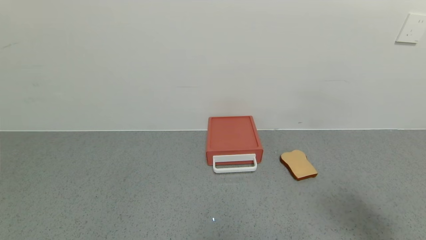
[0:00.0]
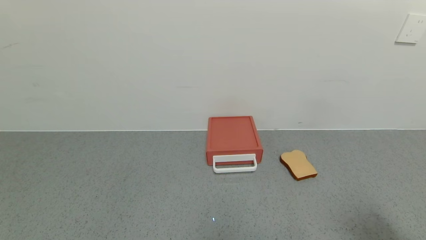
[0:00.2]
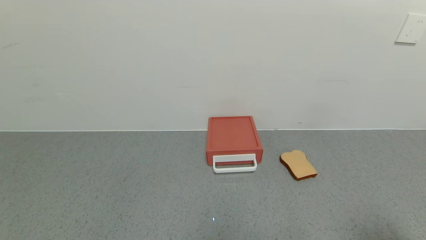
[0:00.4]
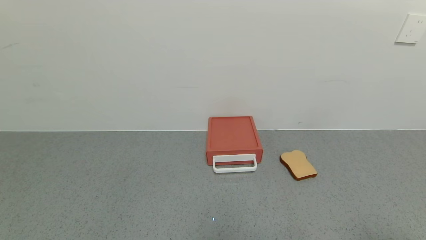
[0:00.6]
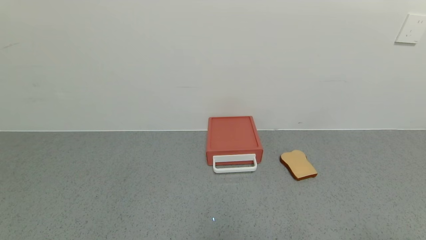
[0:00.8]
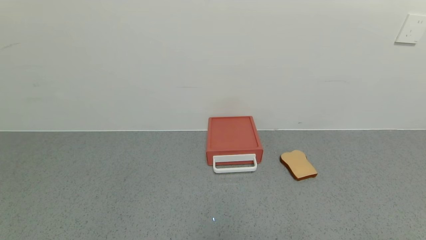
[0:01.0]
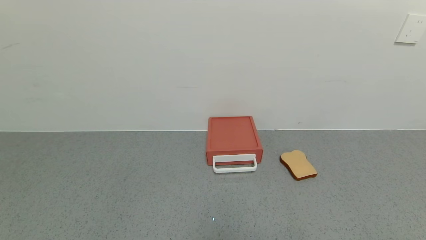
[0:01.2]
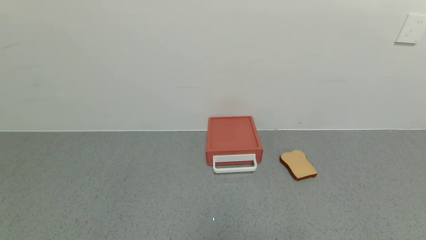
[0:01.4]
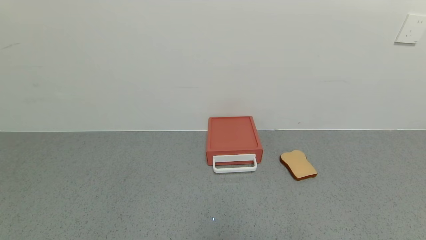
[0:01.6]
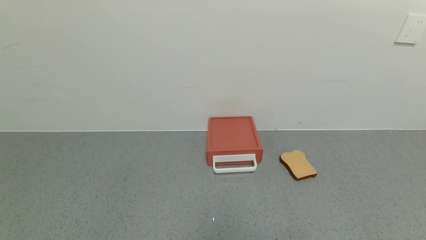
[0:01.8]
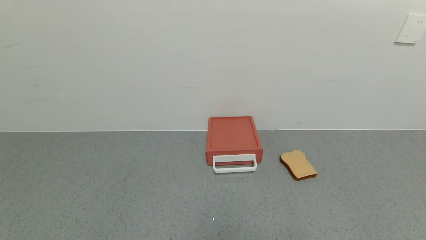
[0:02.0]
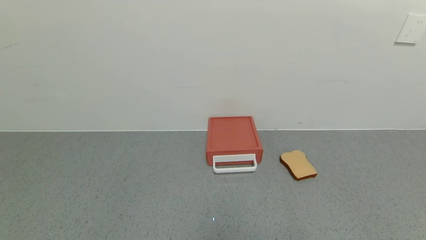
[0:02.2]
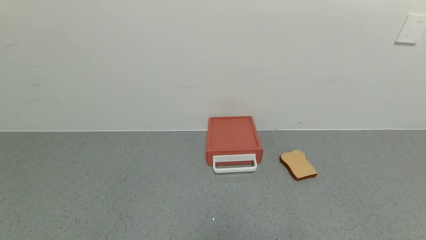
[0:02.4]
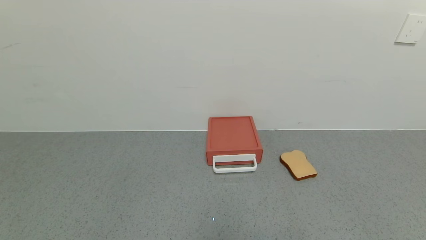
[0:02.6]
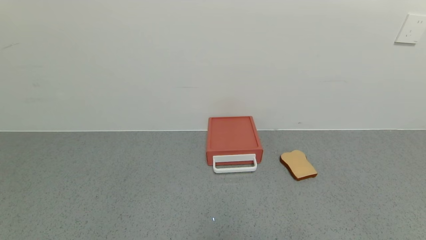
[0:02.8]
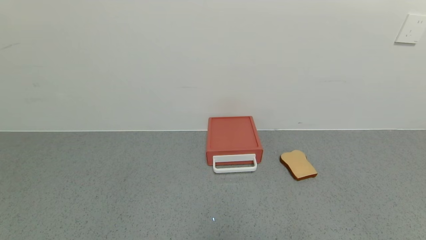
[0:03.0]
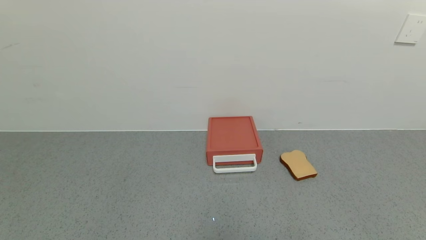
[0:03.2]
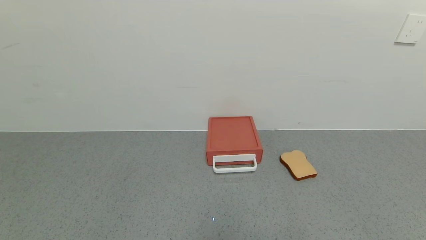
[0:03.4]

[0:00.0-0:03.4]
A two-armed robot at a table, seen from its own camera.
Task of the whole recording: use the gripper to open the drawer and close the red drawer.
0:00.0 to 0:01.6: The right gripper is displaced backward and downward by approximately 15 cm.

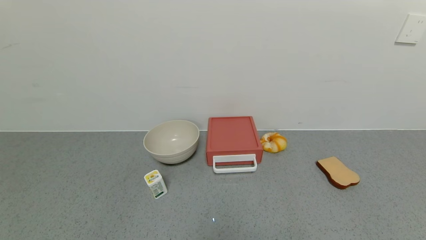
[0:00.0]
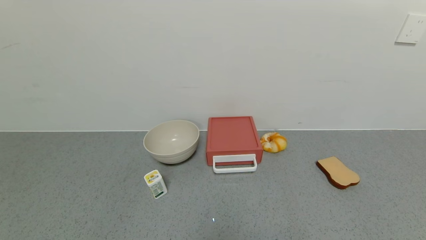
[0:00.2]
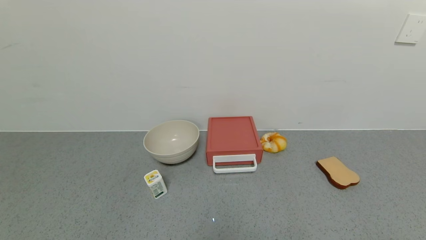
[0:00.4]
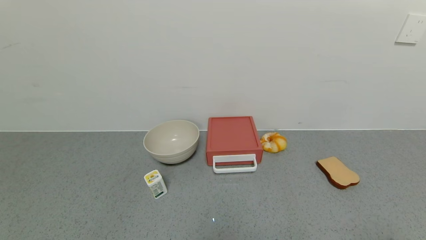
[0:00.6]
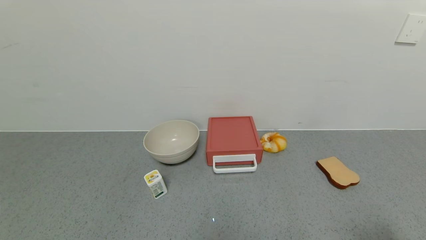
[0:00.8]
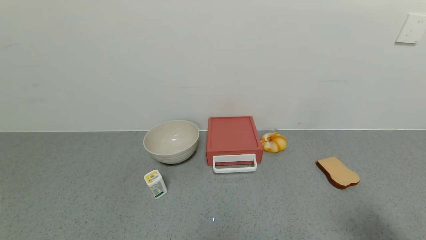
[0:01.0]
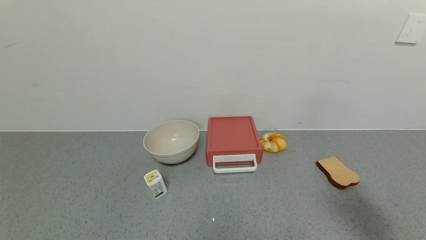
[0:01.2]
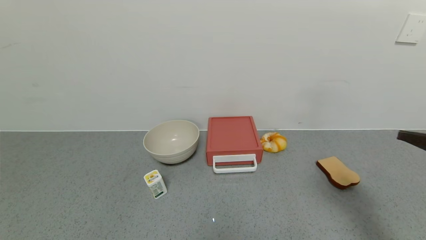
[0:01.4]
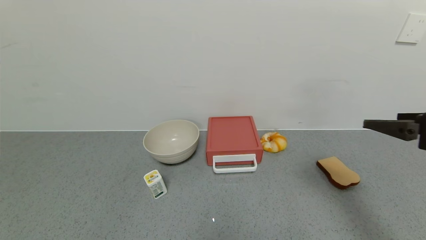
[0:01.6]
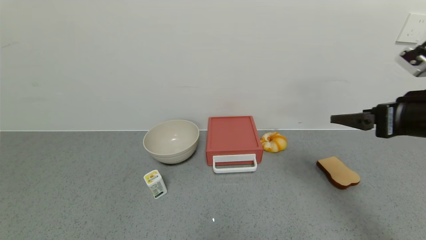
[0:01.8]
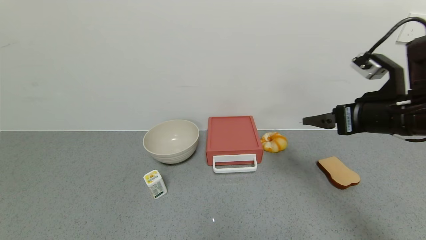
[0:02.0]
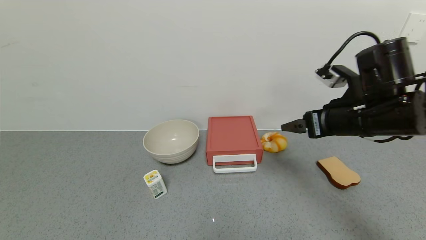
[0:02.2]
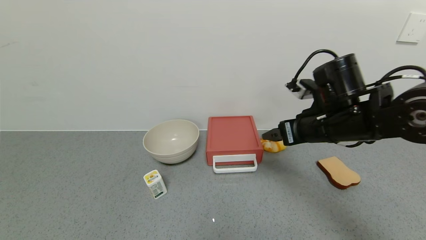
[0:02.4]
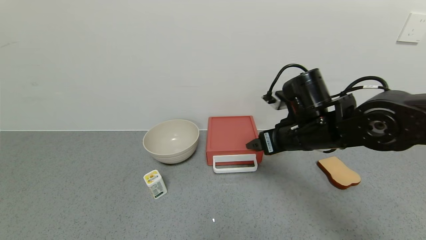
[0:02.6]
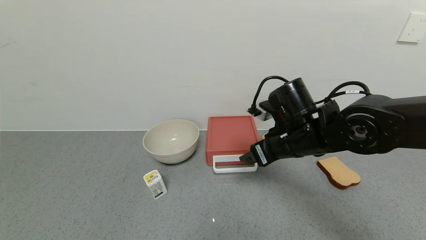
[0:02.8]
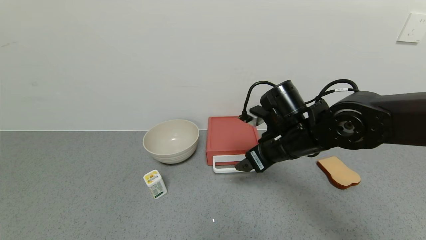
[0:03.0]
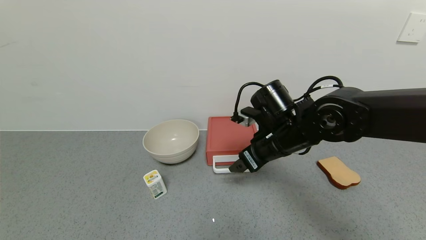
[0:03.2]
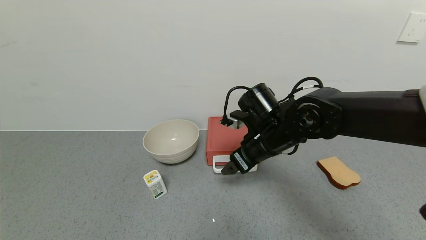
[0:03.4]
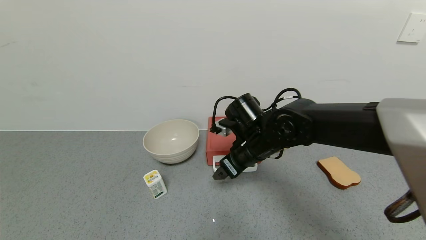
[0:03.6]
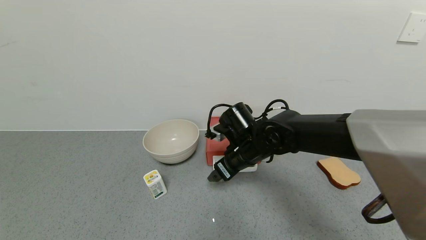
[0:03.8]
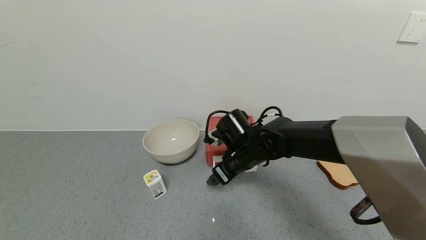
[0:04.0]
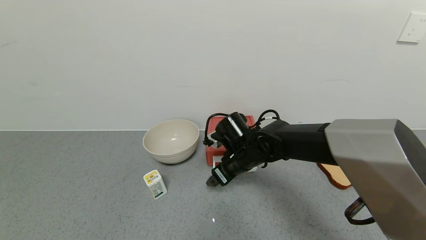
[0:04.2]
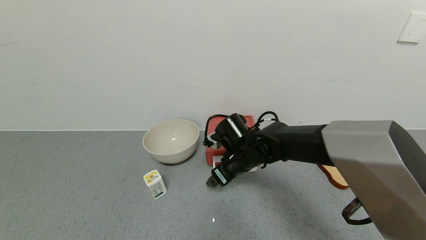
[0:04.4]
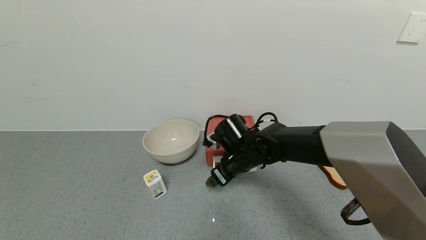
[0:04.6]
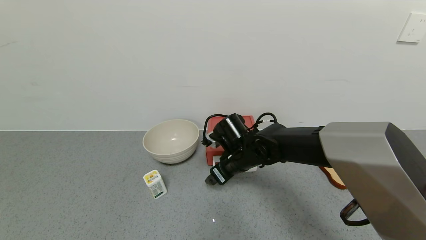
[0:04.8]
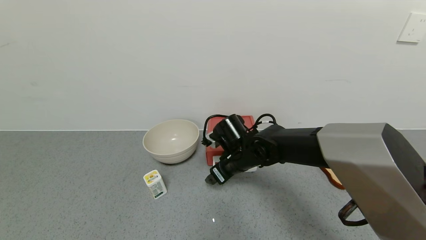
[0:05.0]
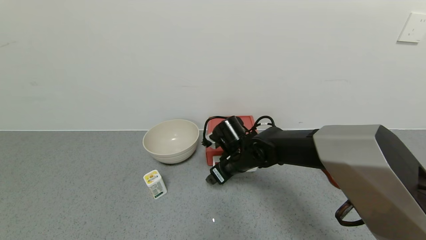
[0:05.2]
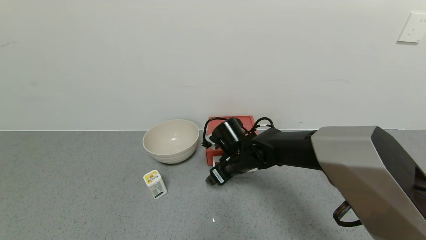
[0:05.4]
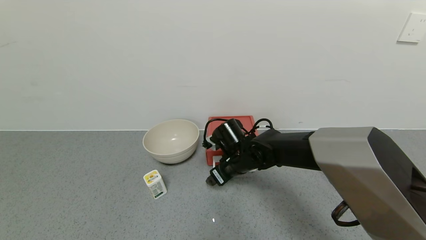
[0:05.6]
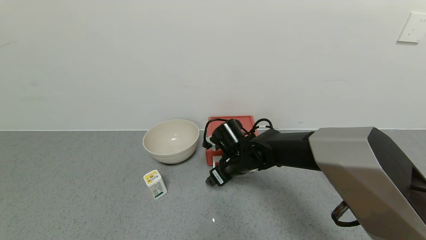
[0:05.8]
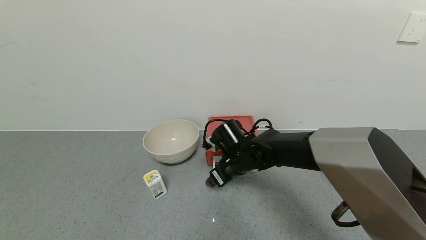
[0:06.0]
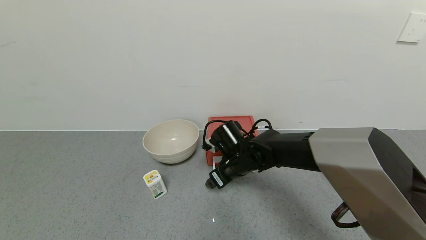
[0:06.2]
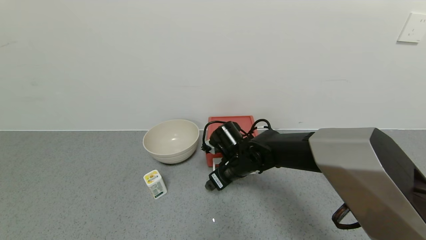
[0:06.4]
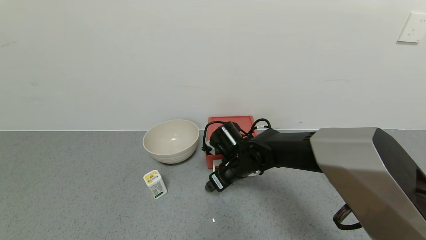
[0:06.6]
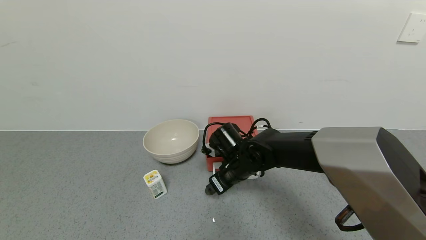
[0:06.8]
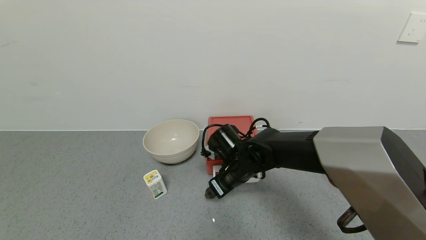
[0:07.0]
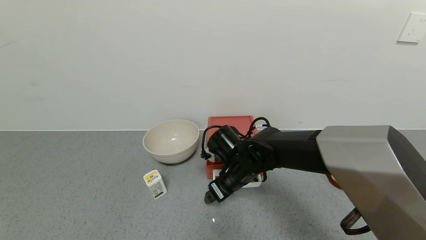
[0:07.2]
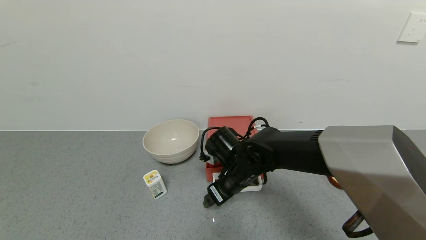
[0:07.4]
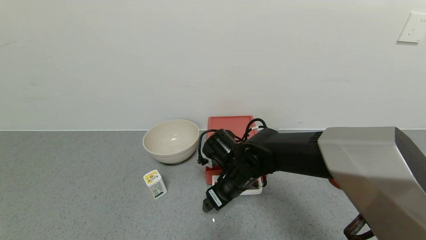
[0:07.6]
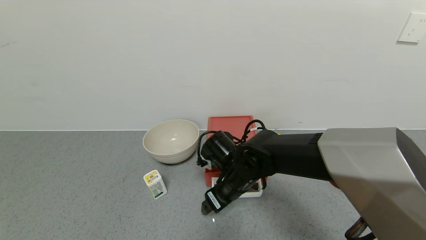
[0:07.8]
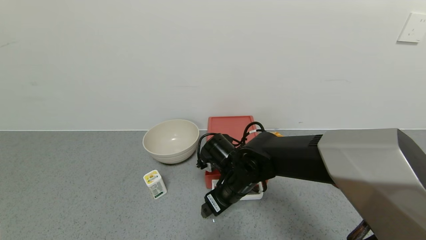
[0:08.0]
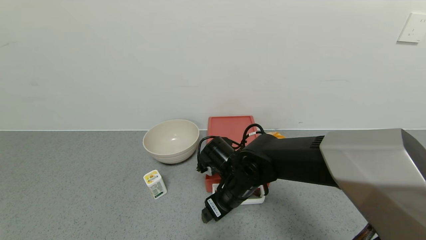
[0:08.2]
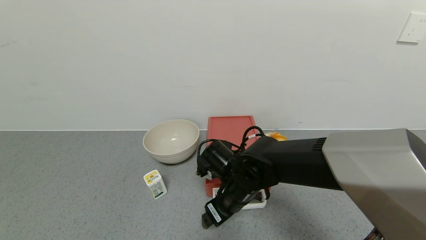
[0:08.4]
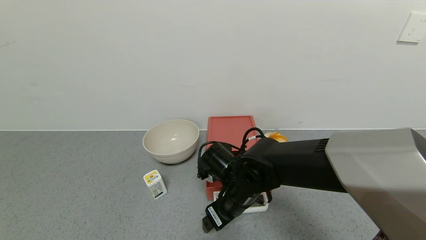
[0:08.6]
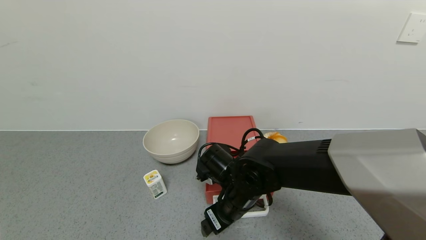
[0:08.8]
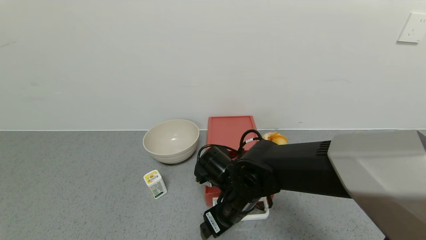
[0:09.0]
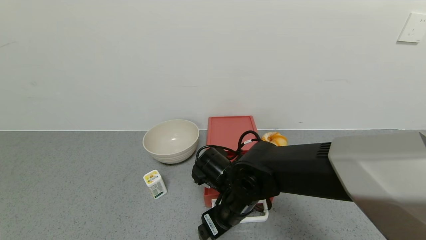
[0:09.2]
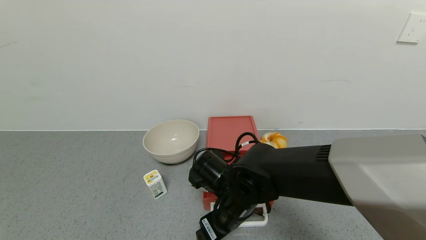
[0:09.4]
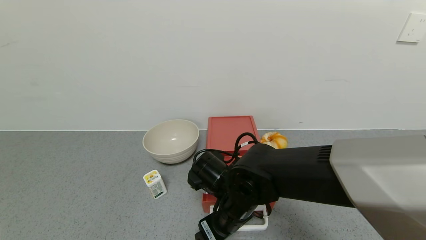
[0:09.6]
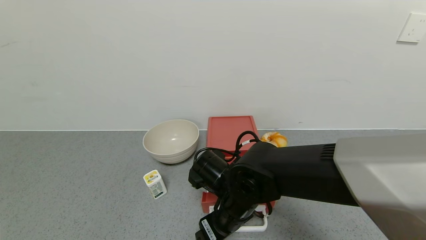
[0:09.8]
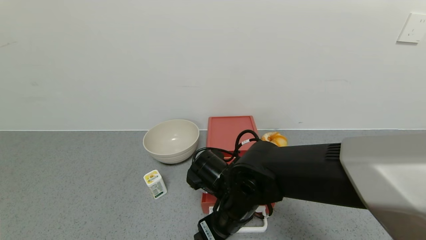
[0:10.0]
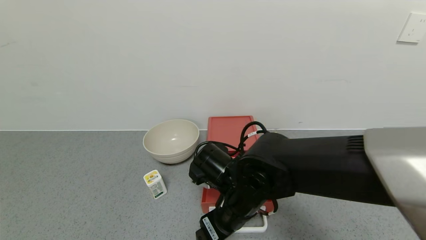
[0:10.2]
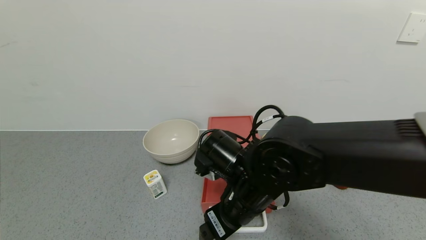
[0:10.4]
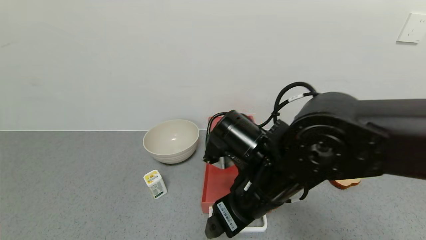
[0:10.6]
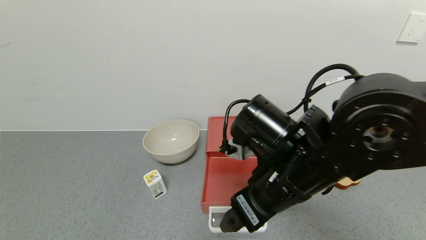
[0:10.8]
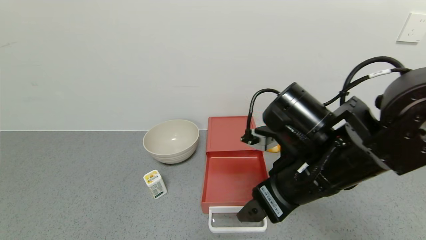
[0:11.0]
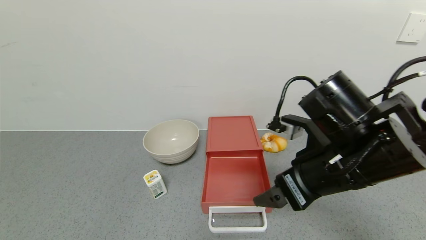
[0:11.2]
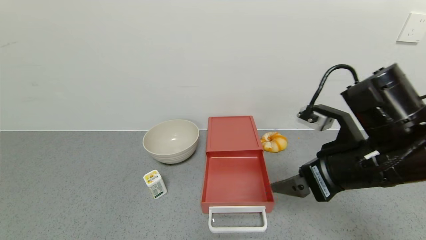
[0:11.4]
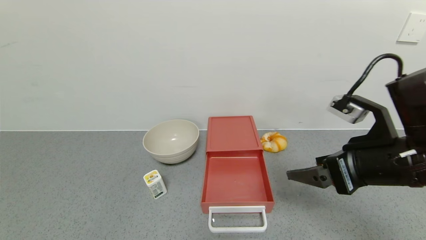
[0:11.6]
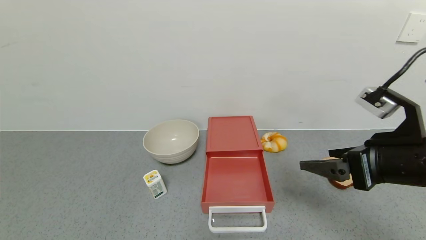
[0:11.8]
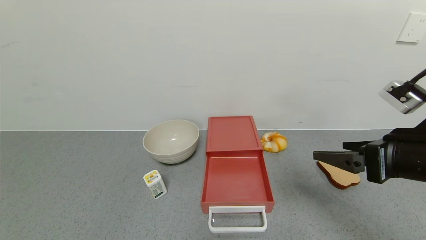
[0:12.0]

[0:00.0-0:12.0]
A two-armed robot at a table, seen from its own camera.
Task of the whole recording: use the gripper to open the drawer and close the red drawer.
Step, 0:00.0 to 0:10.8: Open the red drawer with the right gripper.
0:00.0 to 0:01.6: The right gripper heads forward and upward, covering about 30 cm.
0:01.6 to 0:03.0: The right gripper moves to the left, forward and downward, roughly 25 cm.
0:03.0 to 0:04.4: The right gripper travels downward, to the left and forward by about 15 cm.
0:04.4 to 0:06.0: There are only small adjustments of the grippers.
0:06.0 to 0:07.6: The right gripper is displaced backward by approximately 5 cm.
0:07.6 to 0:09.0: The grippers move only a little.
0:09.0 to 0:10.4: The right gripper goes approximately 5 cm upward.
0:10.4 to 0:12.0: The right gripper shifts approximately 25 cm to the right.

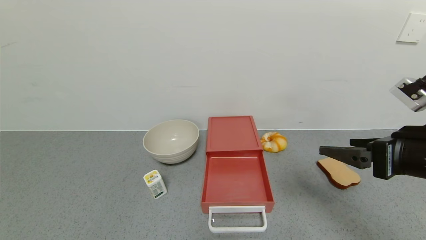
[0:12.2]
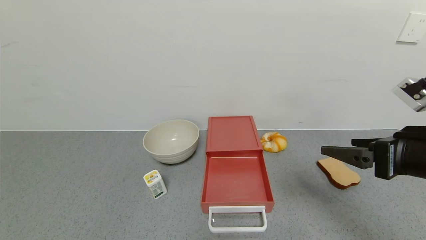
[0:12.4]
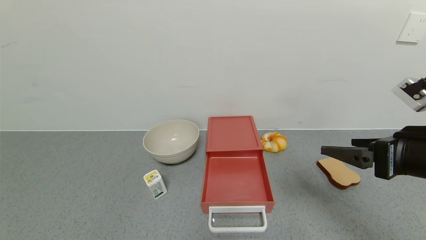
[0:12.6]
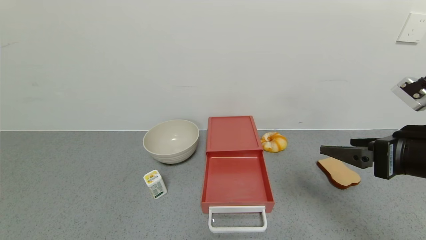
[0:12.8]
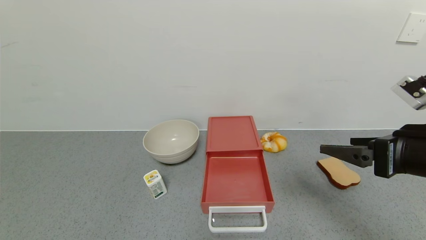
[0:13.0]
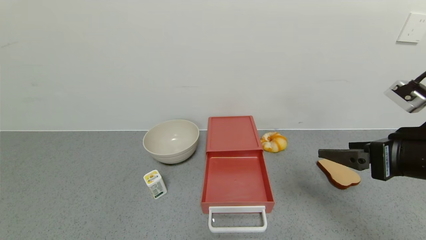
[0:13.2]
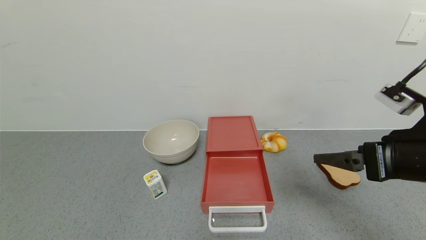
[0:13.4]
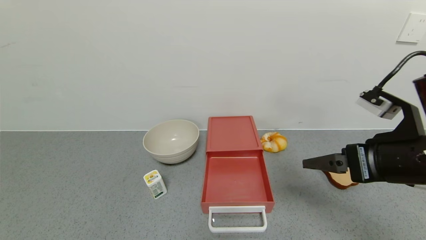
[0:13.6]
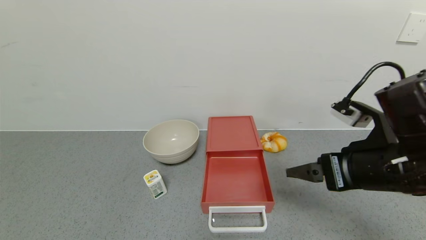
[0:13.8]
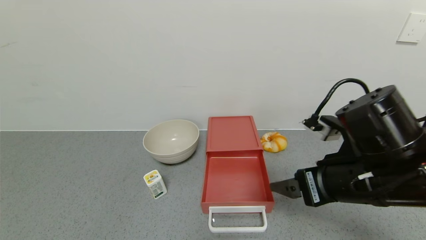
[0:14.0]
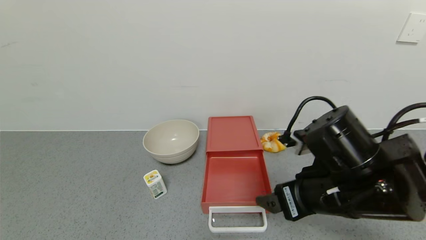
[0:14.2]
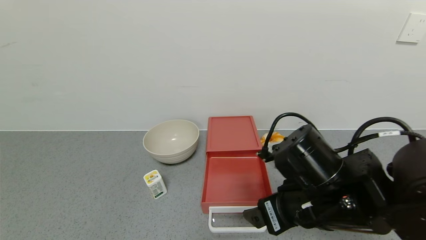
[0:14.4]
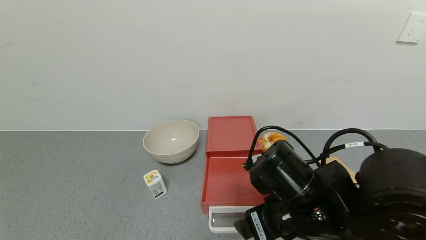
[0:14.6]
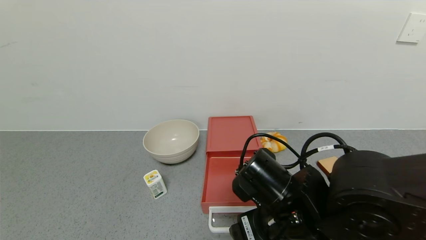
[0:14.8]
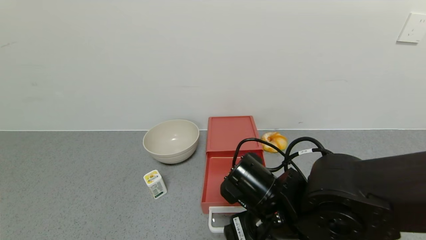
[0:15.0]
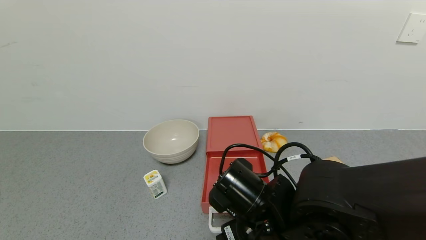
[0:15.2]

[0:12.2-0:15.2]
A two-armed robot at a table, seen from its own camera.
Task of the whole recording: use the gripper to open the drawer and close the red drawer.
0:12.2 to 0:13.8: The right gripper travels to the left by roughly 5 cm.
0:13.8 to 0:15.2: The right gripper travels to the left and downward by about 20 cm.
